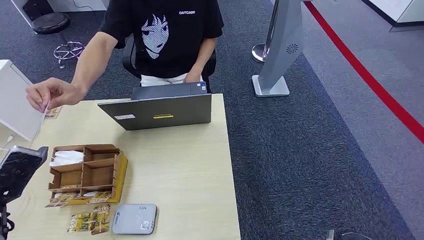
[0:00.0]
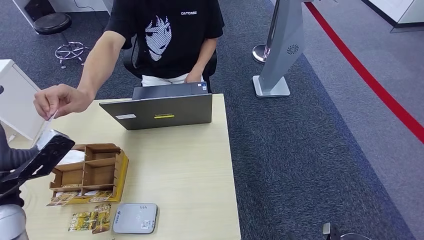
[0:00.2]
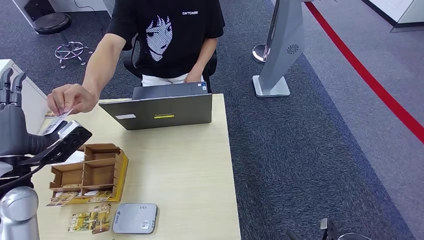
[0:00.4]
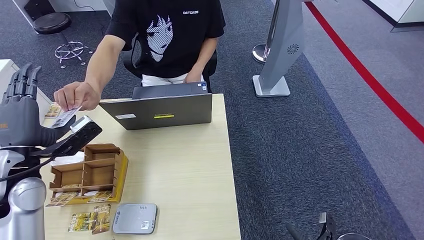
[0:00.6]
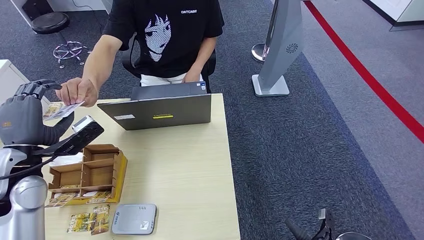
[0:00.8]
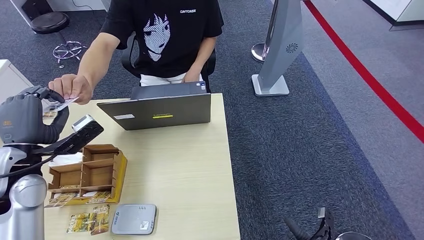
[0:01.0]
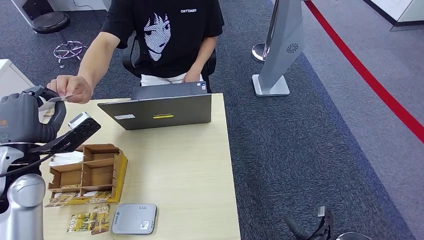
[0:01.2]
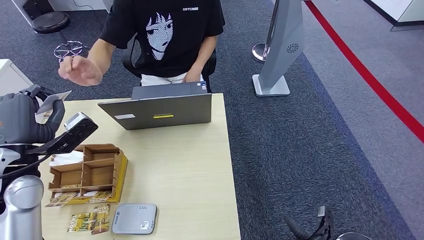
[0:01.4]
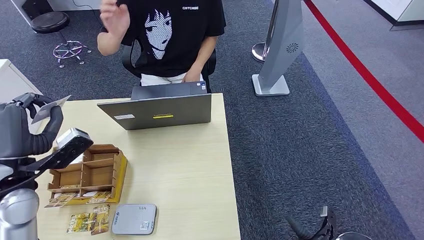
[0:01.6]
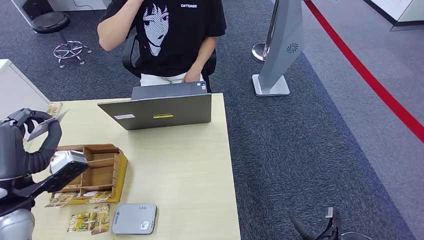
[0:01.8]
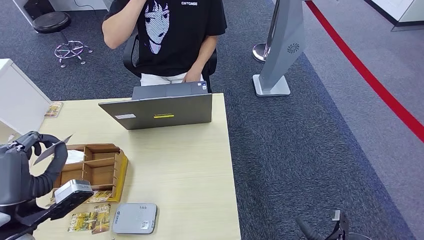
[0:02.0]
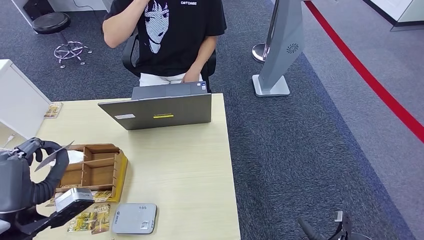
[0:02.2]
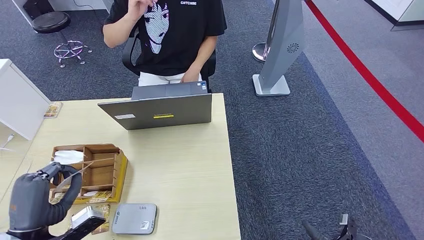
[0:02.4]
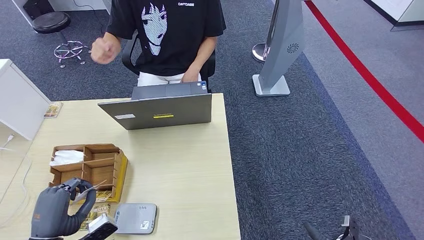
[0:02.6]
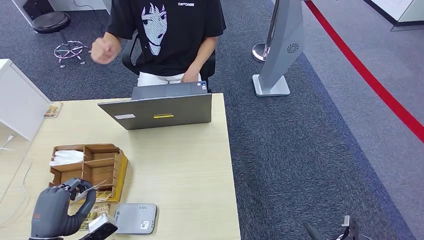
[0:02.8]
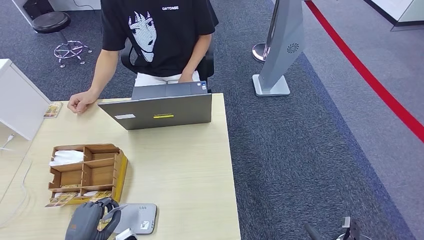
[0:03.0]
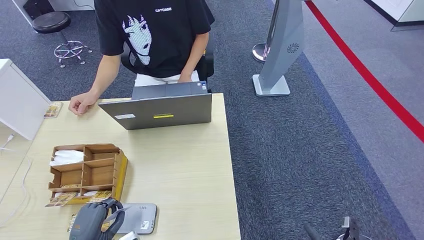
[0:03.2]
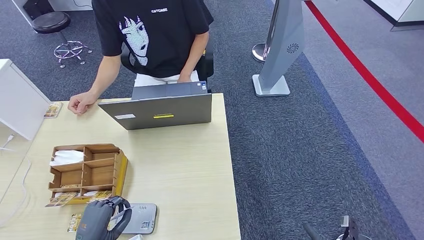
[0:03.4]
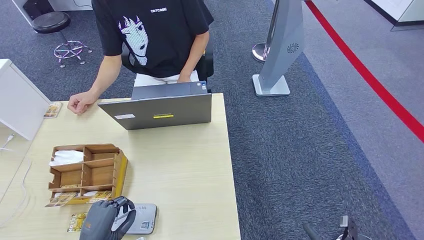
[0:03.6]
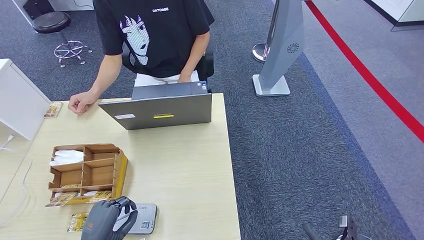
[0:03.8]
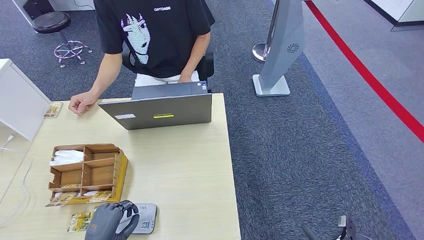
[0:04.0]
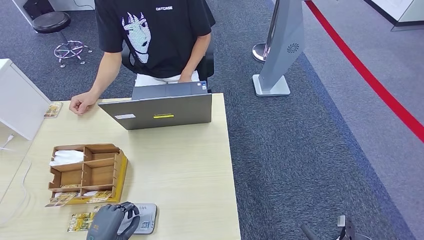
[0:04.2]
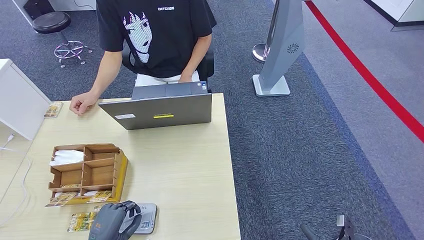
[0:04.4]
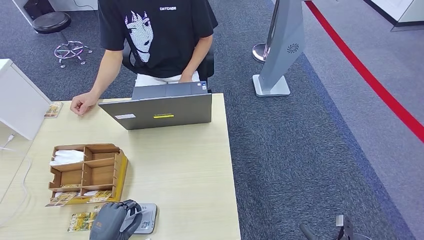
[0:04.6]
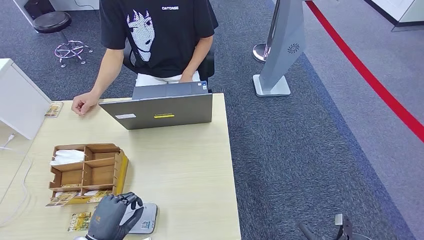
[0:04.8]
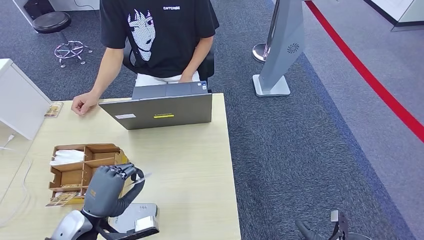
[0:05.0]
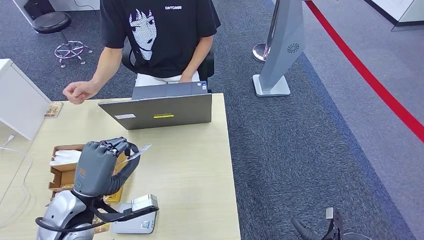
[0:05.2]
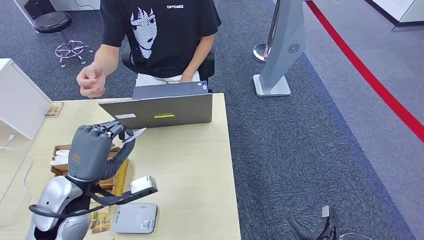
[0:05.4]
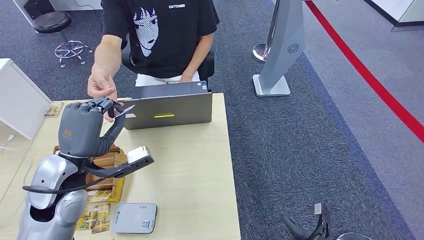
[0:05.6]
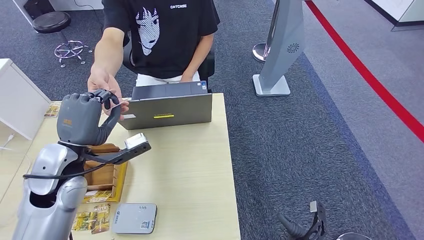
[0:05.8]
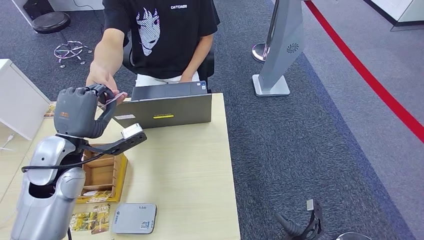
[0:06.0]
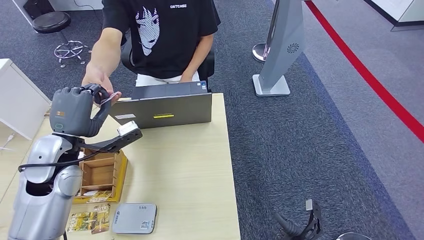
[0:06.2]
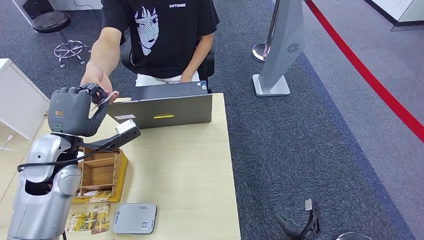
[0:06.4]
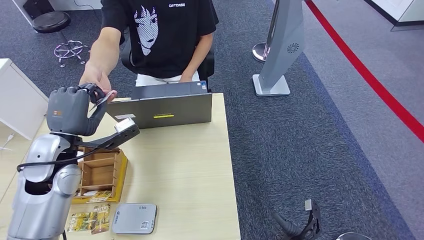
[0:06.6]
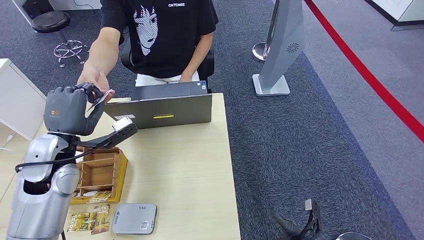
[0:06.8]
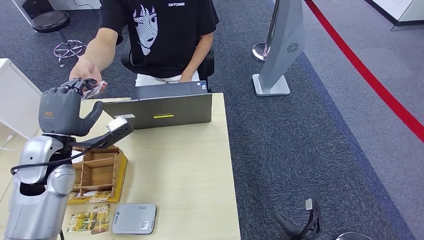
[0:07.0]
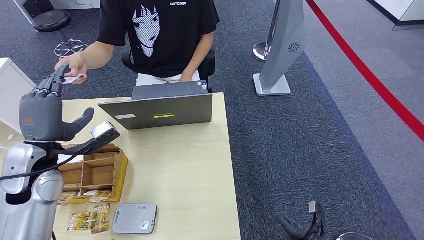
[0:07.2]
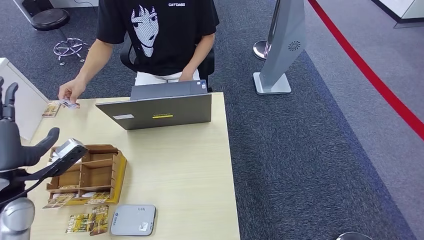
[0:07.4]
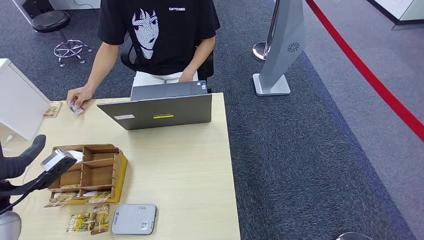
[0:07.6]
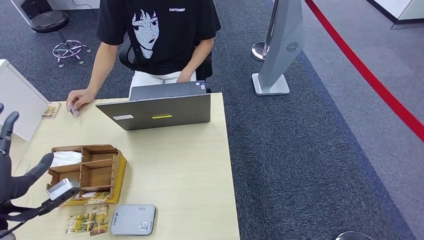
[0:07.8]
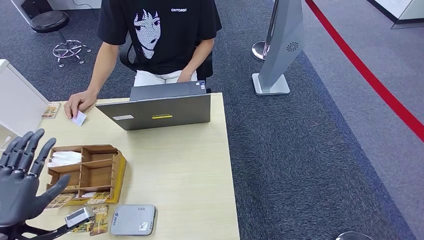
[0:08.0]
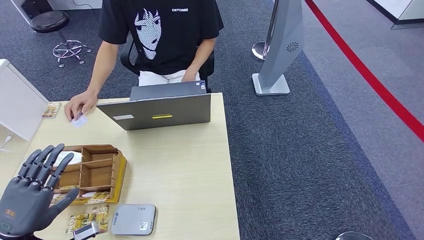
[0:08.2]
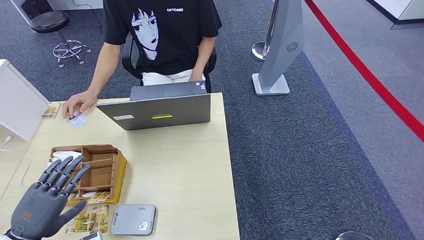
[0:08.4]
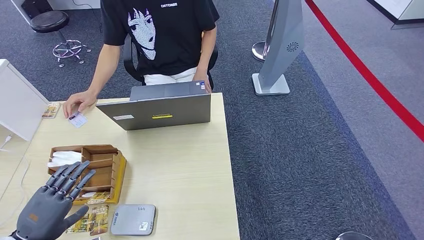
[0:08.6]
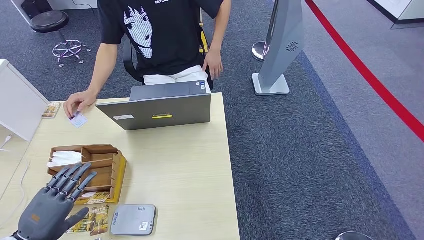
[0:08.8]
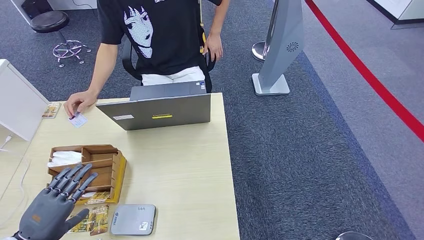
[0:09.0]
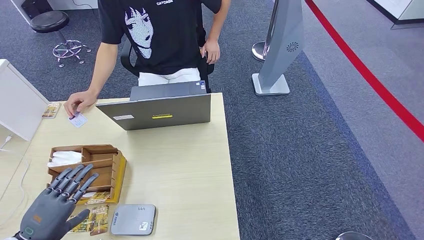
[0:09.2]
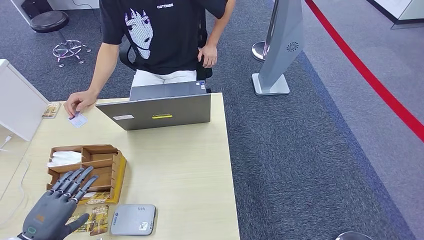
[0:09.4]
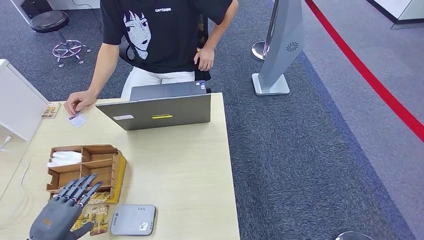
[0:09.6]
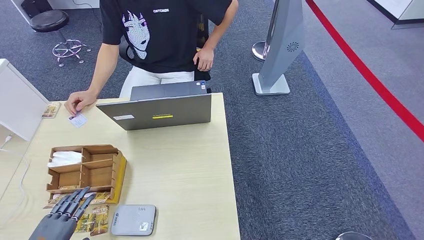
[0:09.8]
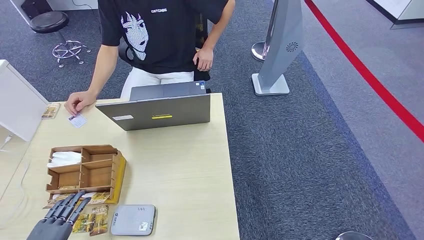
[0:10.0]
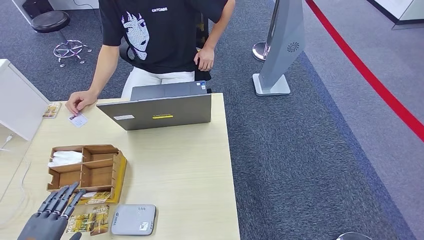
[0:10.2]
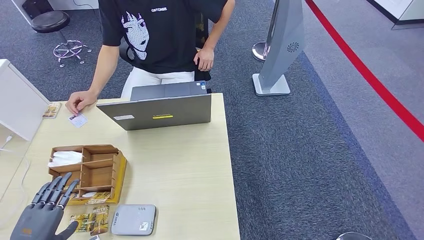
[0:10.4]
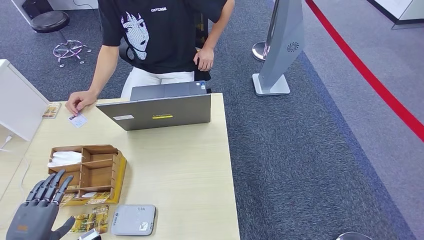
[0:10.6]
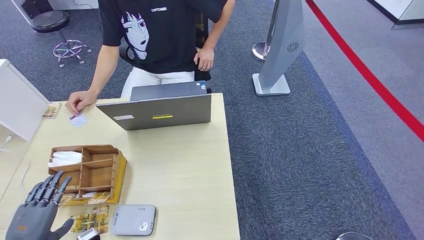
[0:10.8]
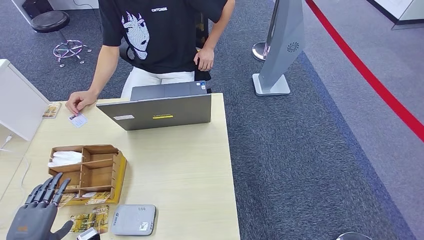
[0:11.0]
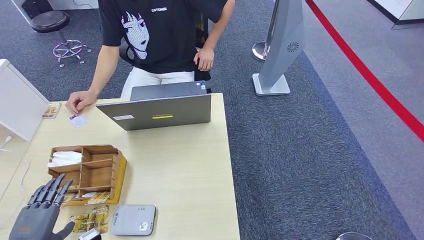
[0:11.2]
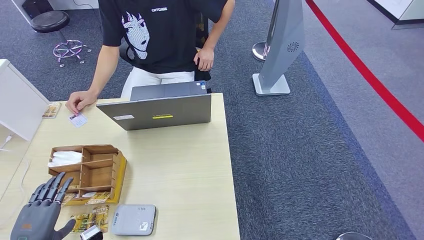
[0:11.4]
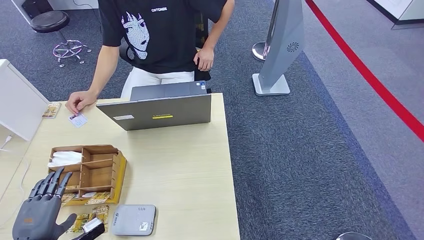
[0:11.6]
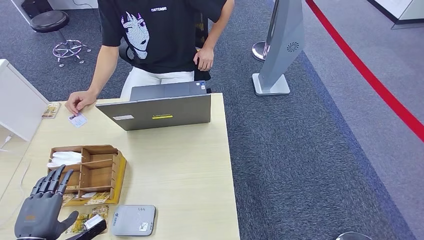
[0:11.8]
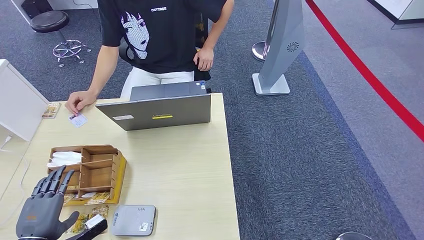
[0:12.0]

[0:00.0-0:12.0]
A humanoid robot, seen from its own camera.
Step, 0:00.0 to 0:02.4: Take the ID card from the person's hand.
Step, 0:02.6 to 0:05.4: Place the ID card on the card reader.
Step, 0:05.6 to 0:08.8: Hand the ID card to the person.
0:01.6 to 0:03.0: The left hand is displaced downward and backward by about 20 cm.
0:03.0 to 0:04.4: The left hand moves downward, some 5 cm.
0:04.4 to 0:06.0: The left hand is displaced upward and forward by some 30 cm. Meanwhile the right hand shifts by approximately 5 cm.
0:06.0 to 0:07.6: The left hand is displaced to the left and backward by about 15 cm, while the right hand moves backward, approximately 15 cm.
0:07.6 to 0:09.0: The left hand goes approximately 15 cm downward and backward.
0:09.0 to 0:10.4: The right hand is displaced to the right by about 10 cm.
0:10.4 to 0:12.0: The hands move only a little.

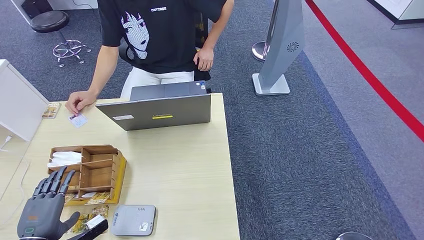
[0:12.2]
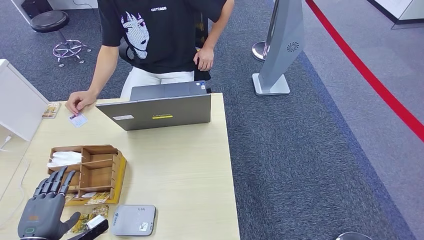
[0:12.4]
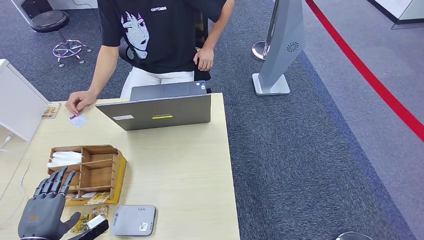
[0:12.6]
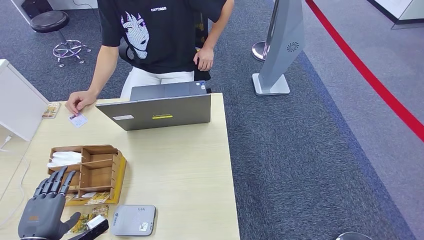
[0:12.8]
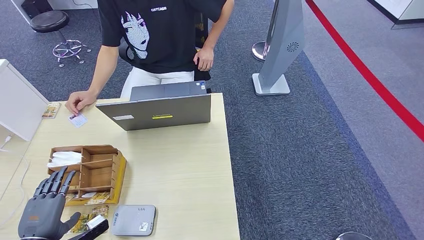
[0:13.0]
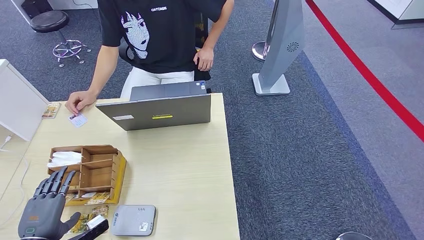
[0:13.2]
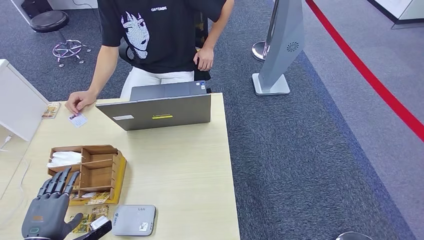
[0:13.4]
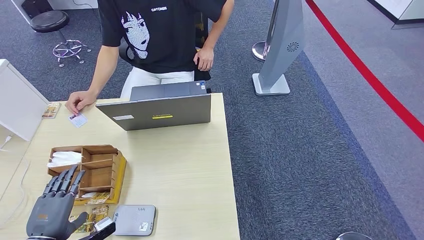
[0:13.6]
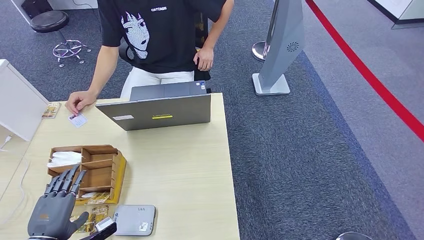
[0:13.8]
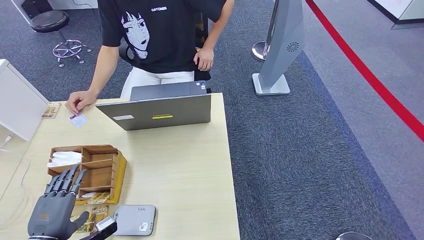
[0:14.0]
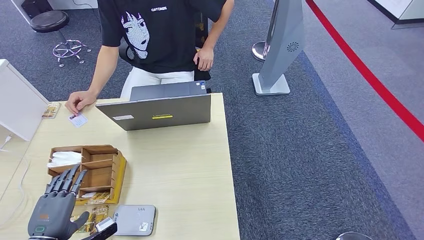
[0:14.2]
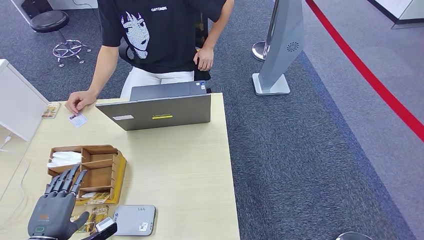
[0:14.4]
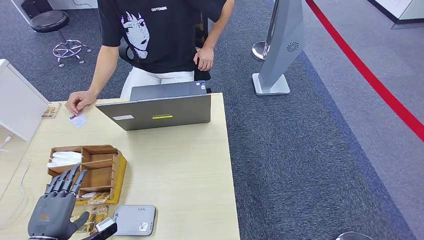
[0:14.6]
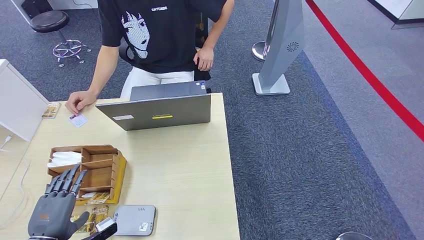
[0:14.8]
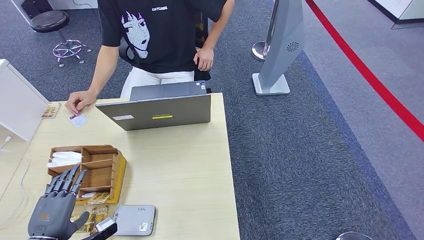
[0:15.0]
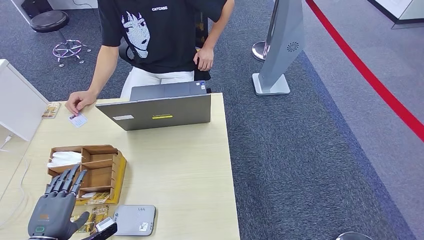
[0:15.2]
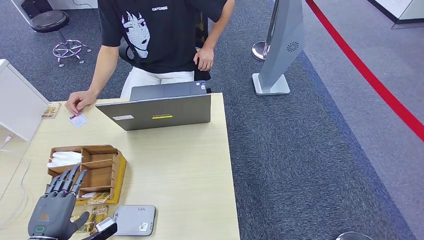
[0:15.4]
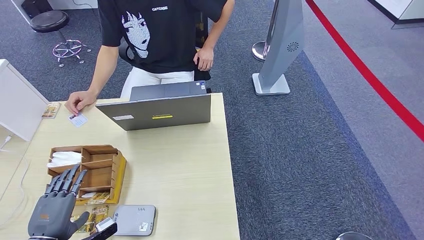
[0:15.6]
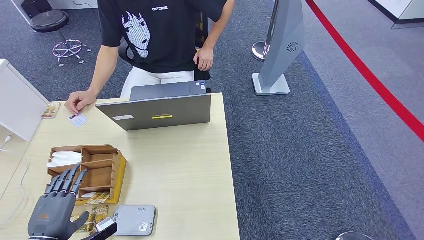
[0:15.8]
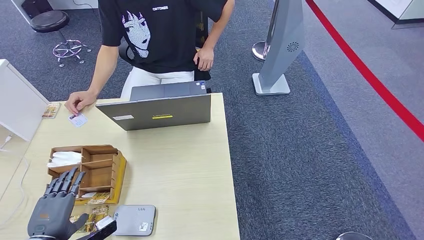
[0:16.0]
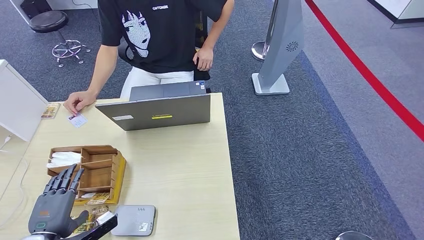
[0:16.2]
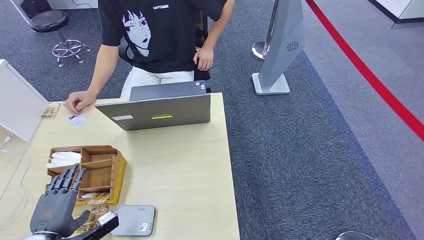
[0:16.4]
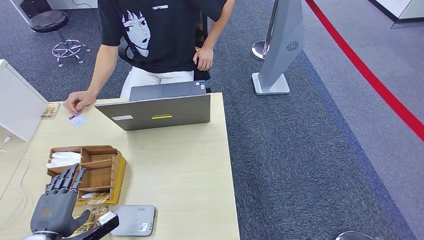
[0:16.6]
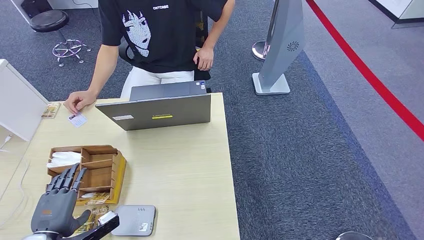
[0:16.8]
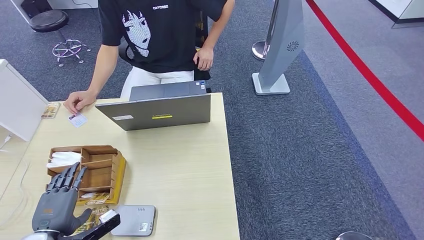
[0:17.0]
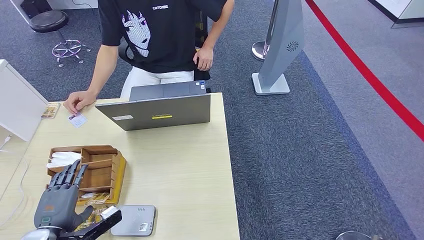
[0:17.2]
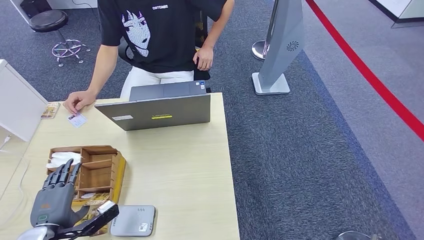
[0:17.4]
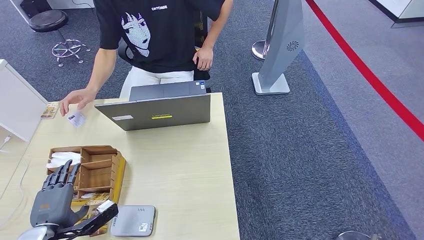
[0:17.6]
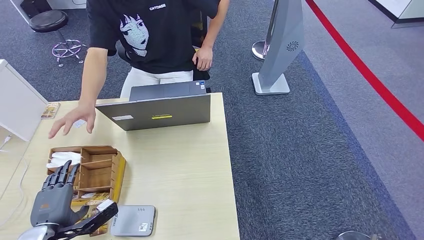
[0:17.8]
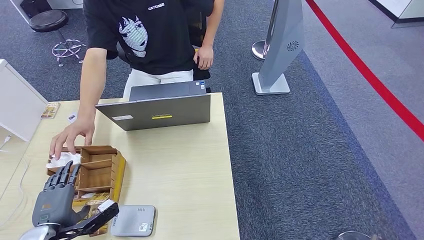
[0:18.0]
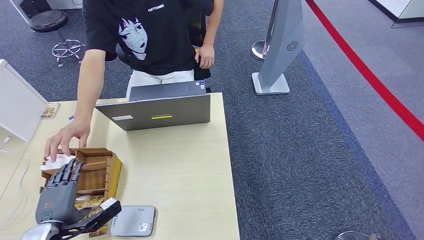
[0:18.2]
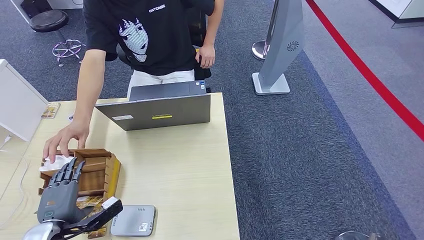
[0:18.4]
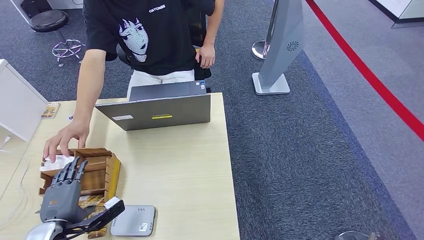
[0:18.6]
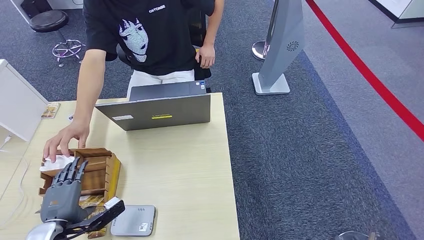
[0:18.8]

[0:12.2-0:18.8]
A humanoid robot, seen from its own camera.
0:12.2 to 0:13.8: There are only small adjustments of the hands.
0:13.8 to 0:15.4: The two hands keep their place.
0:15.4 to 0:18.8: The hands stay close to where they were, moving slightly.
